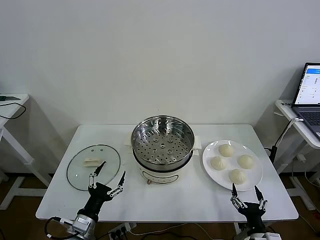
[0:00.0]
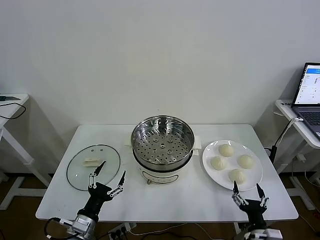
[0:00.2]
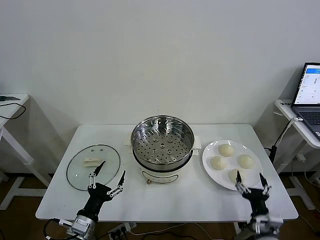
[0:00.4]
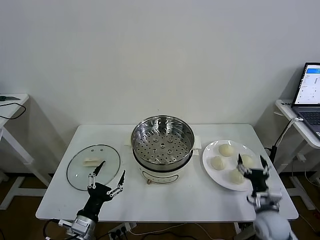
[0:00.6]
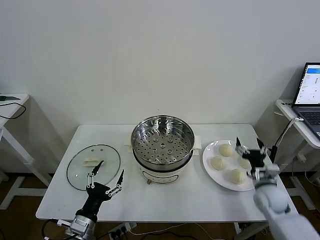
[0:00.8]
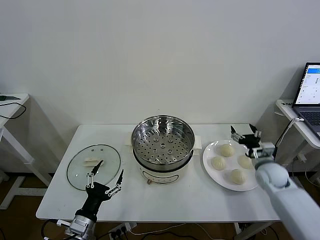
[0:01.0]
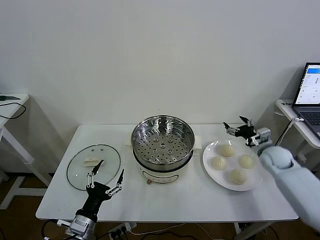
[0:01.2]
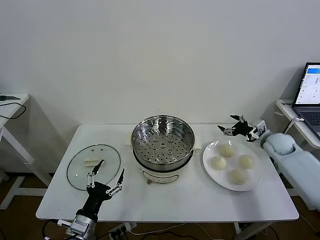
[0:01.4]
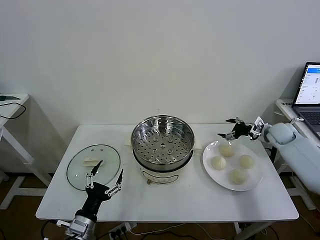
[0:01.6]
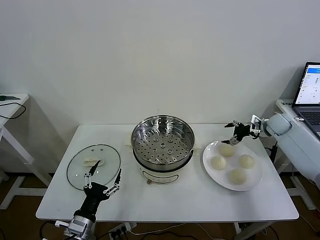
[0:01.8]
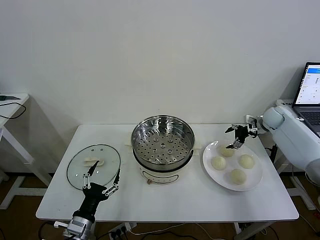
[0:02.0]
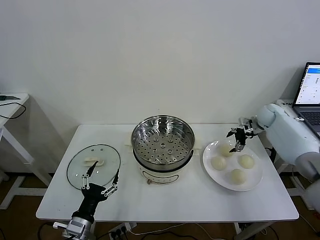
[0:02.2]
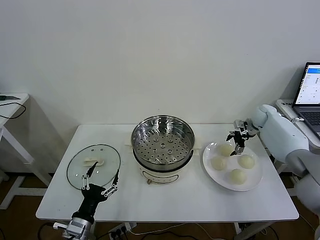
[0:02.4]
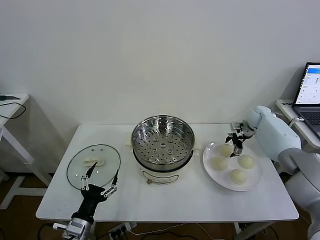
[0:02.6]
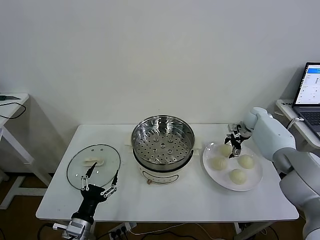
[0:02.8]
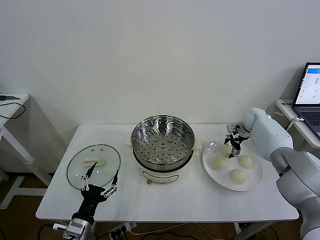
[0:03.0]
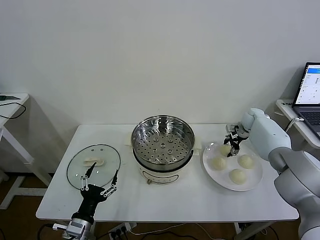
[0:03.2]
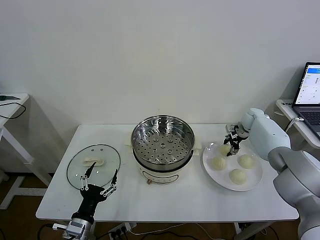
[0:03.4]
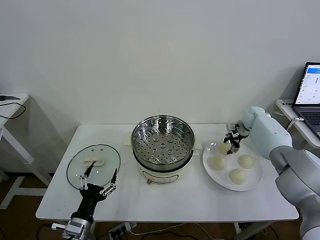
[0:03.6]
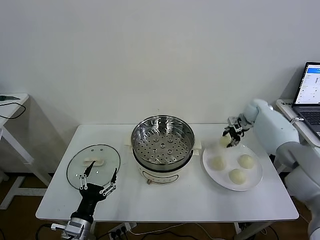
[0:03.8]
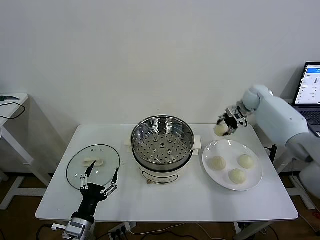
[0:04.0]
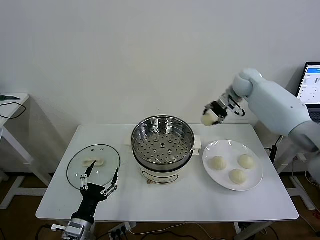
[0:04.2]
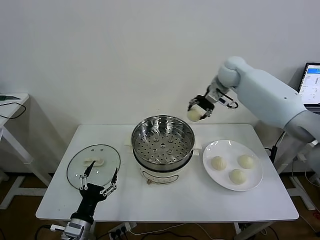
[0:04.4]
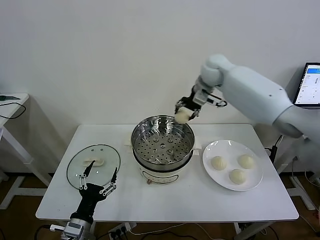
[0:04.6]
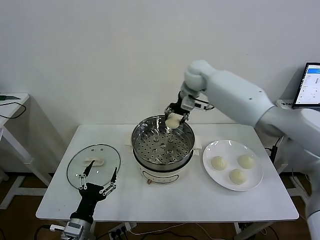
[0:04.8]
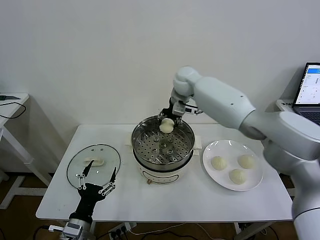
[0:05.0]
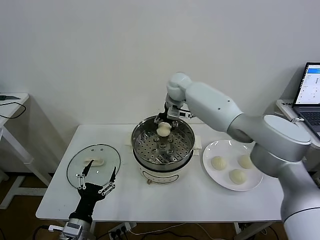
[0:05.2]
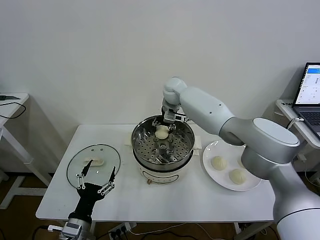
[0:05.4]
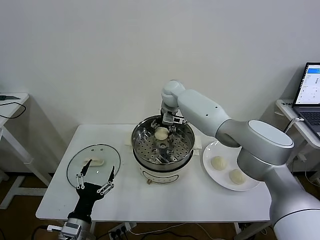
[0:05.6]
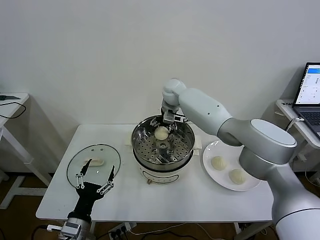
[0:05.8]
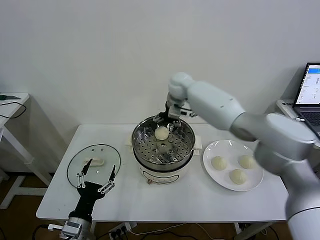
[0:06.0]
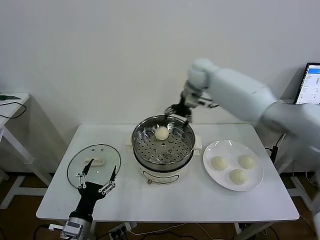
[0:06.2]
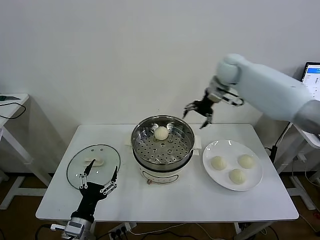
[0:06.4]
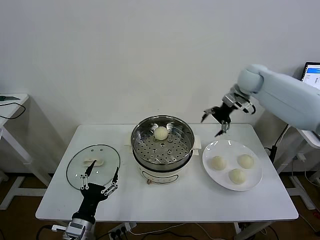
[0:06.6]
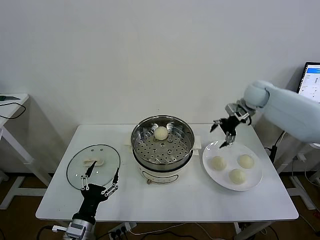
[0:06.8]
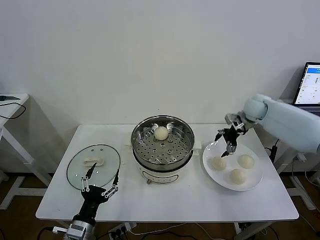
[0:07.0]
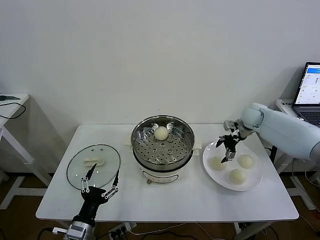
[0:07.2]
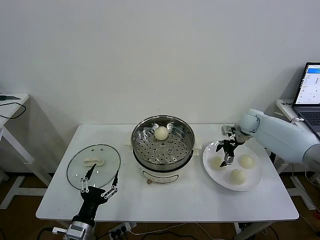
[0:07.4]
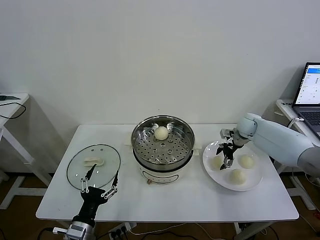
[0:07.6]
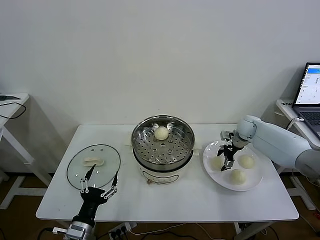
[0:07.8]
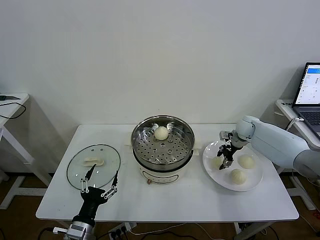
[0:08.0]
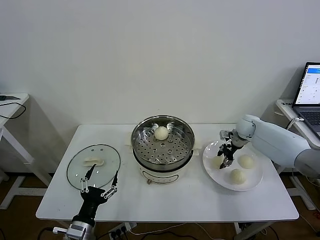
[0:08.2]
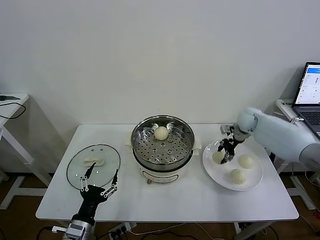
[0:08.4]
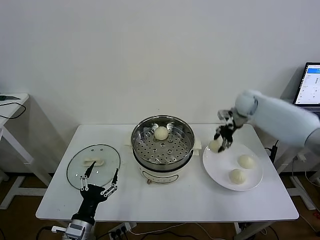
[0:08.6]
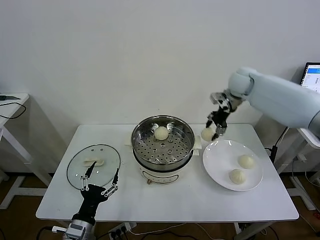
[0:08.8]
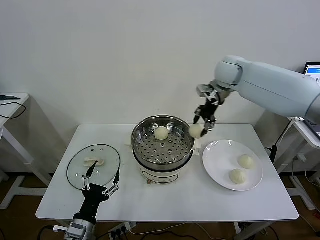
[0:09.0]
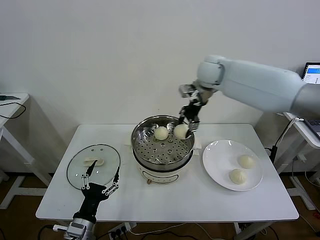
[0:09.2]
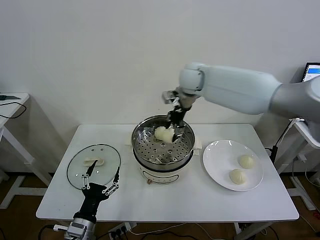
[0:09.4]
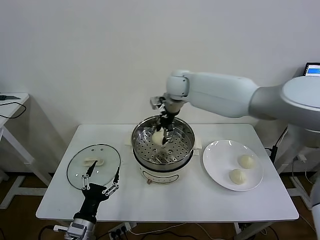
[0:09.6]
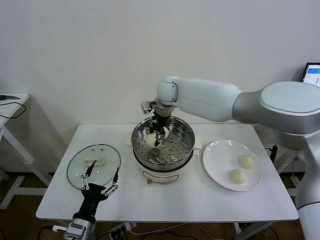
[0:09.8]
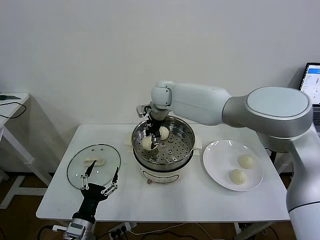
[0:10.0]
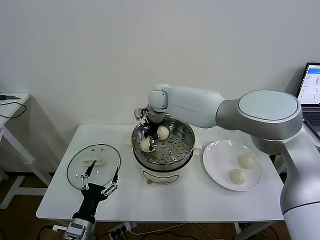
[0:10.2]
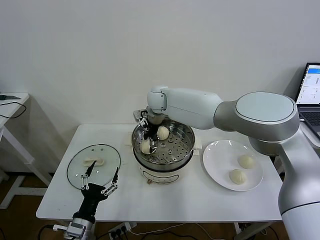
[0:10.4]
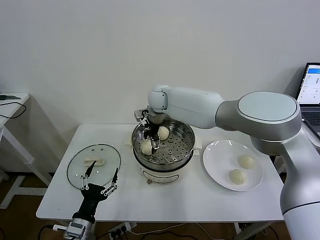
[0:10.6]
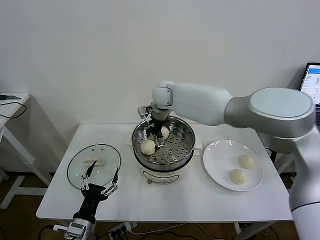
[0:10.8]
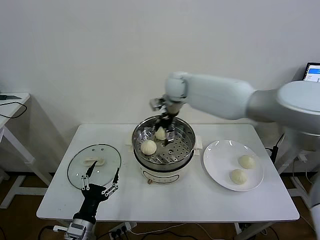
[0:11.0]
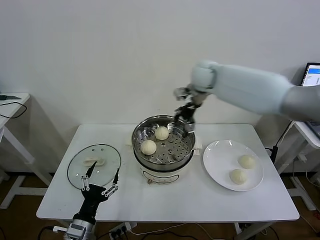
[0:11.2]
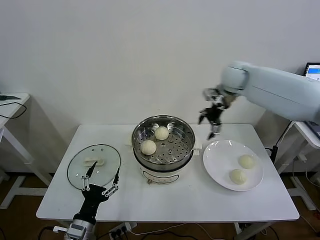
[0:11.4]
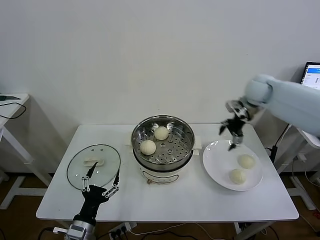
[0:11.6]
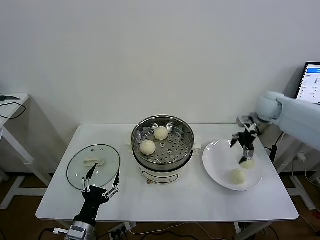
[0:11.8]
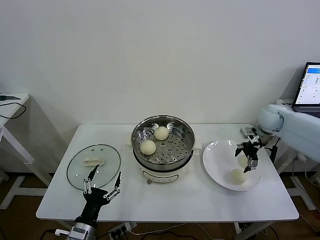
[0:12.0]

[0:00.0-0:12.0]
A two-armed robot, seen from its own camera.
Task of the whole recording: take steamed baozi put them in steamer then cover it.
Step, 0:00.0 to 0:03.4: Grasp the baozi in the plate with right gripper.
Step, 0:03.6 to 0:05.6: Place the baozi on the steamer with right gripper.
Step, 0:05.8 to 0:08.0: Grasp the baozi in the plate with right gripper.
Step, 0:08.2 to 0:10.4: Place the baozi on the steamer with right gripper.
0:01.6 to 0:03.0: The right gripper is displaced forward and to the left by approximately 10 cm, and closes its fingers.
0:03.0 to 0:04.4: The right gripper heads upward and to the left, covering some 30 cm.
0:04.4 to 0:06.0: The right gripper is displaced to the left by approximately 10 cm, and opens its fingers.
0:06.0 to 0:07.6: The right gripper travels to the right and downward by about 30 cm.
0:07.6 to 0:09.0: The right gripper goes roughly 30 cm upward and to the left, and closes its fingers.
0:09.0 to 0:10.4: The right gripper travels to the left and downward by about 20 cm, and opens up.
0:10.4 to 0:12.0: The right gripper shifts approximately 40 cm to the right.

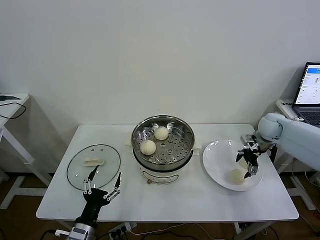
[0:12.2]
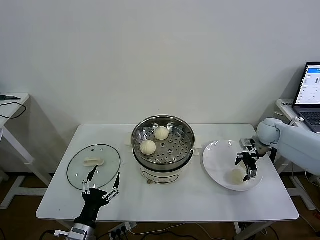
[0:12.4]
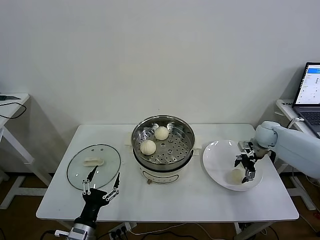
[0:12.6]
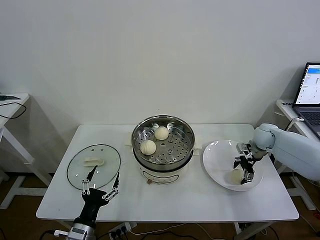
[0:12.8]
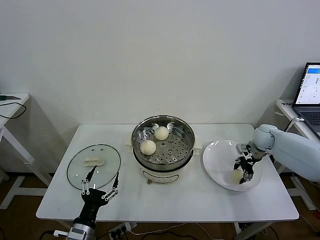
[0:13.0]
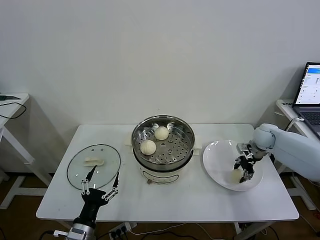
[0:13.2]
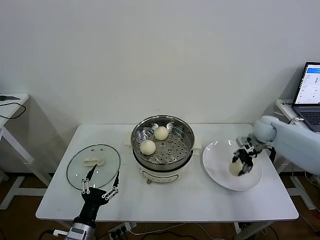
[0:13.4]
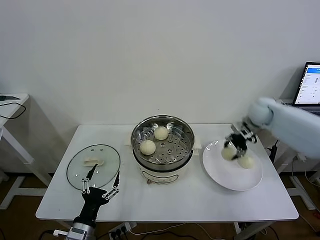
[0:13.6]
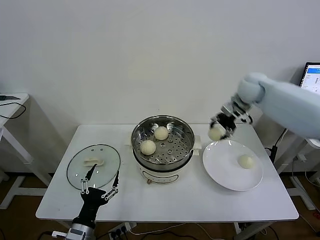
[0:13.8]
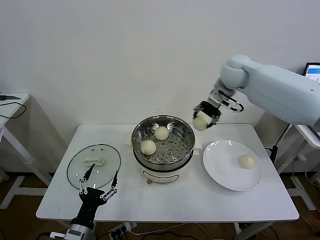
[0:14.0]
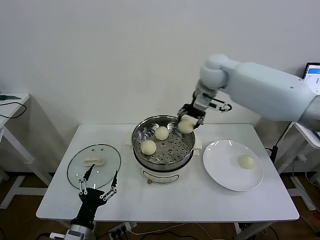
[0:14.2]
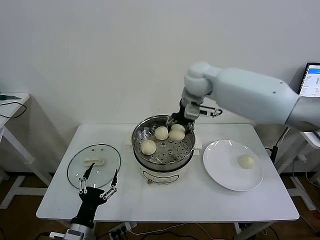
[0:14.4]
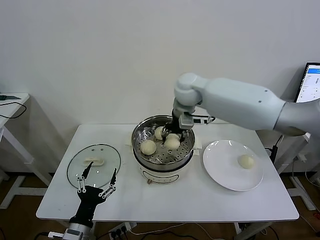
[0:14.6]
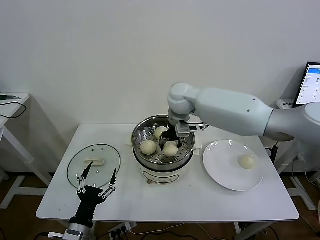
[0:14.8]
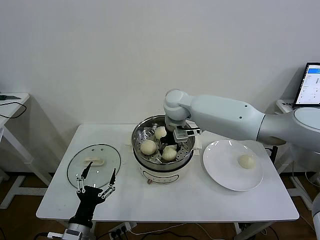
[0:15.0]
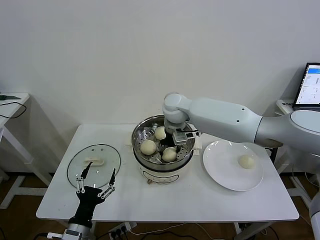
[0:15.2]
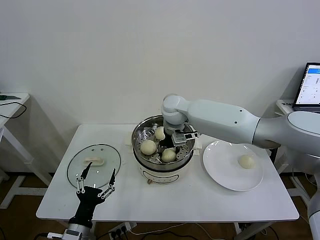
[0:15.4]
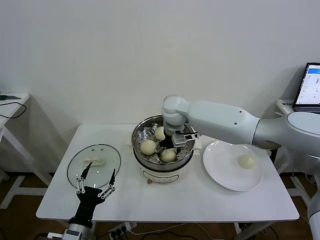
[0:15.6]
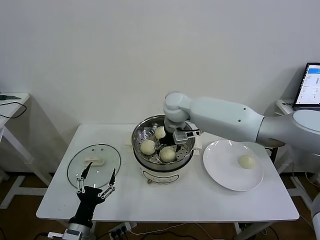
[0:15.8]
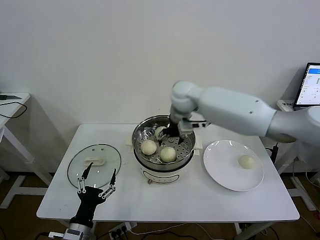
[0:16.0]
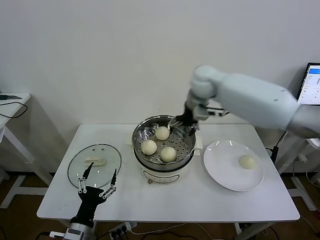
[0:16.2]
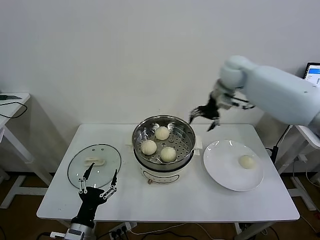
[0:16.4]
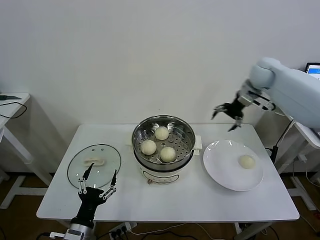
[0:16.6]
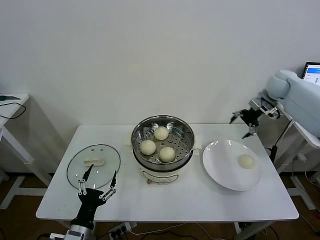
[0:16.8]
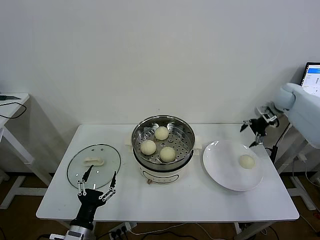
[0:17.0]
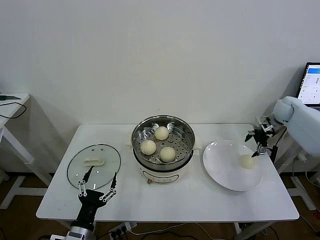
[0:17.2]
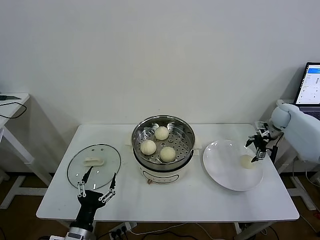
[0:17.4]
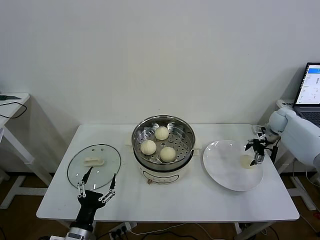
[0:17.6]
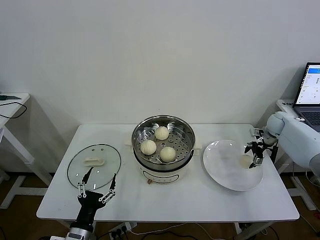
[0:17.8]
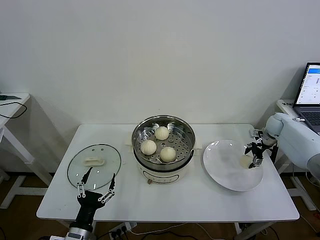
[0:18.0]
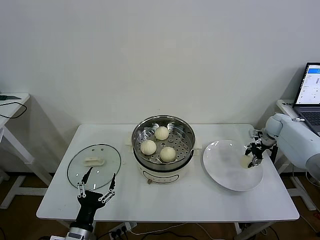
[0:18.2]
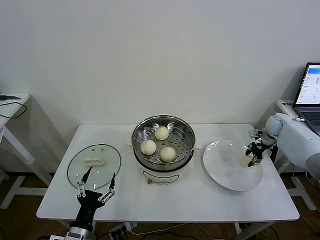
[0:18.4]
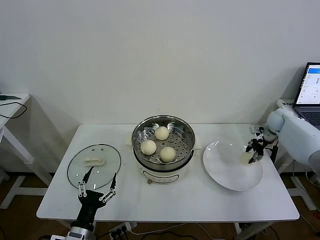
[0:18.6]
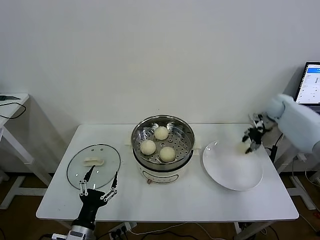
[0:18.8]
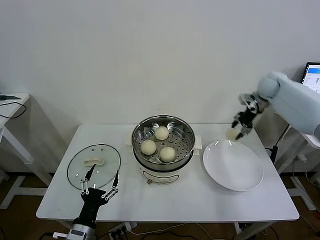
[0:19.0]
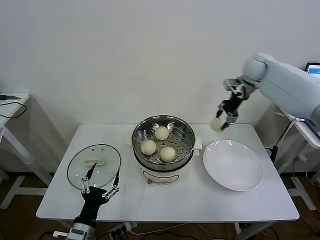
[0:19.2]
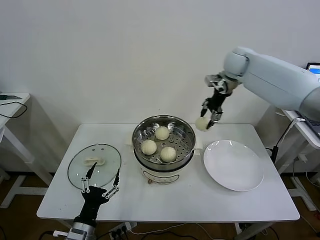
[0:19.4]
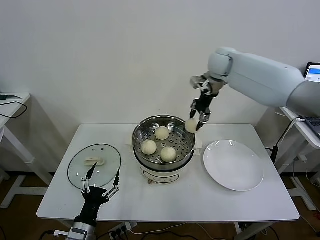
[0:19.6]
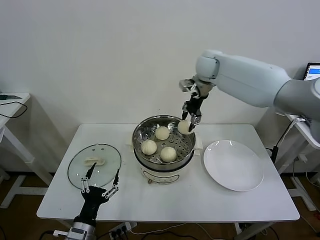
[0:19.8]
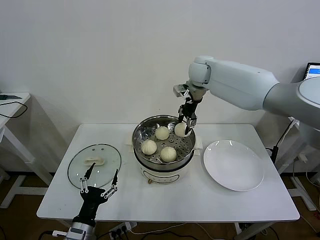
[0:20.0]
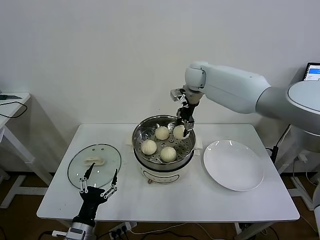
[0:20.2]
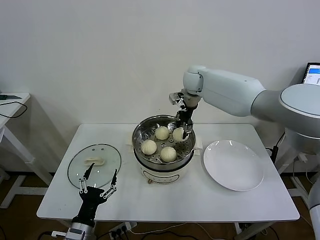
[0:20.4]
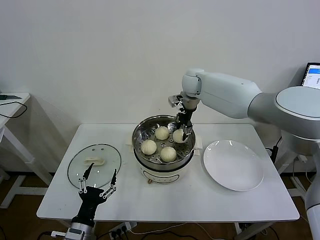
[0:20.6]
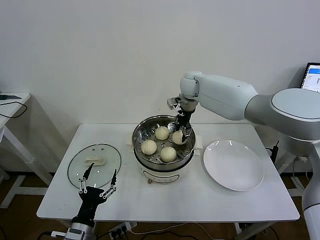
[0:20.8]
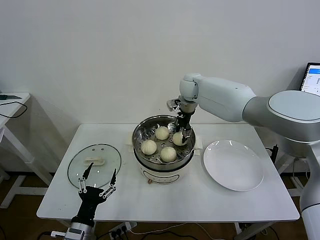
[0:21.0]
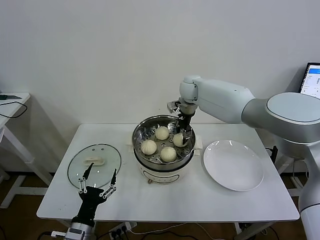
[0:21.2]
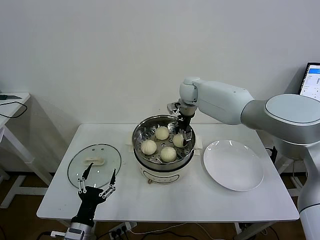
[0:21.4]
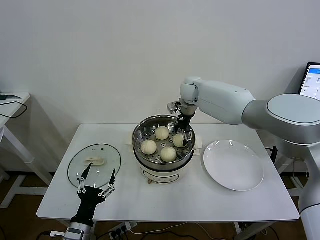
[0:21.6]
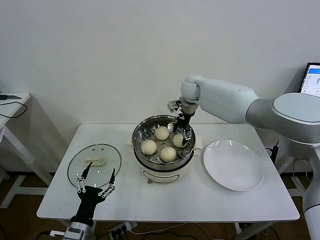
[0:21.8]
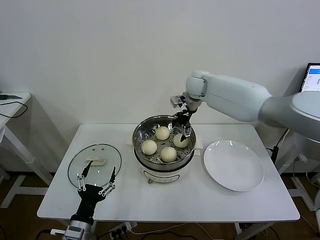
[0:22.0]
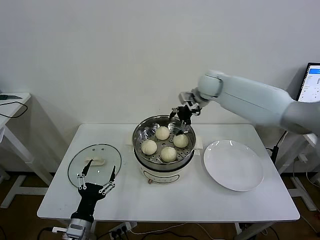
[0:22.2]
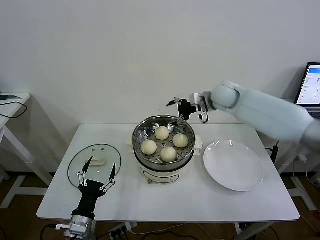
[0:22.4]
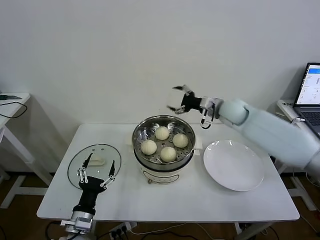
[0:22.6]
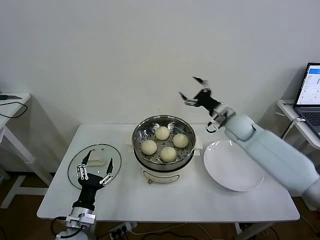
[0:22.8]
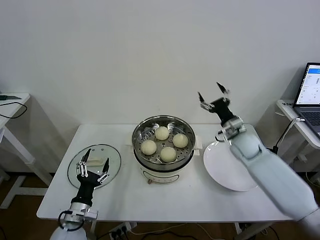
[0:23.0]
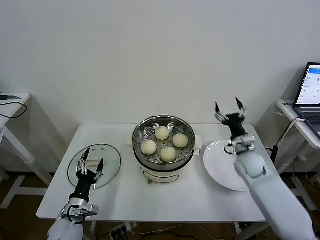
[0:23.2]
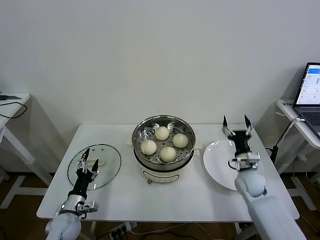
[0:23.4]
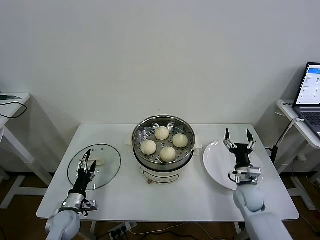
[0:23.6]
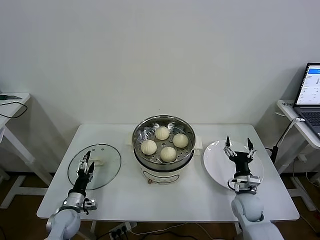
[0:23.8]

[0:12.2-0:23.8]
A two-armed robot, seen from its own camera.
Task of the whole recording: take steamed baozi put them in steamer then cover it.
Step, 0:13.4 to 0:15.8: Place the baozi on the steamer with right gripper.
Step, 0:16.0 to 0:18.4: Grasp the baozi in the plate with right gripper.
Step, 0:18.6 to 0:21.6: Place the baozi on the steamer with right gripper.
0:12.2 to 0:13.6: The right gripper heads upward and to the left, covering approximately 10 cm, and closes.
0:13.6 to 0:15.0: The right gripper goes roughly 30 cm to the left.
0:15.0 to 0:16.6: The right gripper is displaced to the right by some 30 cm, and opens up.
0:16.6 to 0:18.0: The right gripper heads downward and to the right, covering some 25 cm.
0:18.0 to 0:19.4: The right gripper travels upward and to the left by some 35 cm, and closes.
0:19.4 to 0:21.0: The right gripper shifts approximately 15 cm to the left and downward.
0:21.0 to 0:22.4: The right gripper is displaced to the right and backward by approximately 10 cm, and opens its fingers.
0:22.4 to 0:23.8: The right gripper moves downward and backward, about 40 cm; the left gripper moves forward, downward and to the left, about 15 cm.
